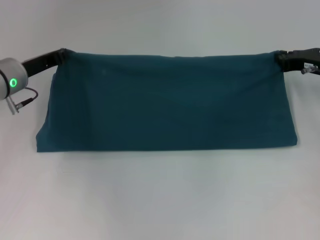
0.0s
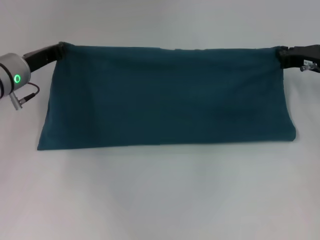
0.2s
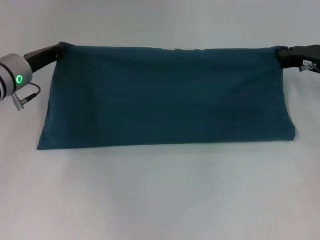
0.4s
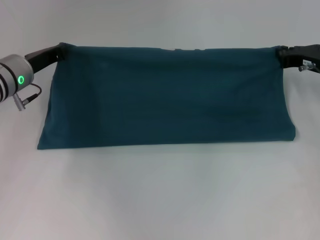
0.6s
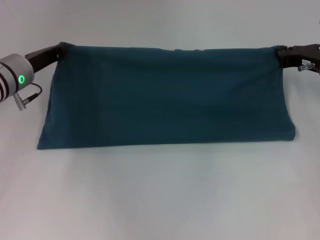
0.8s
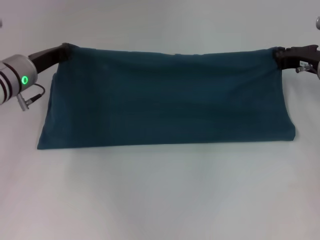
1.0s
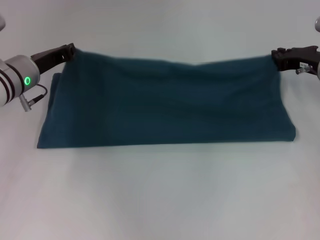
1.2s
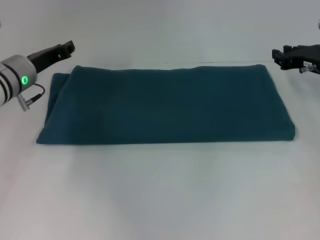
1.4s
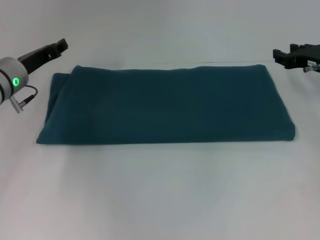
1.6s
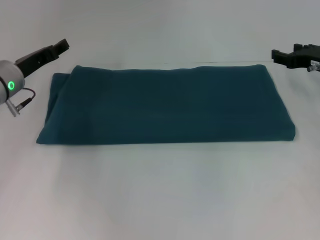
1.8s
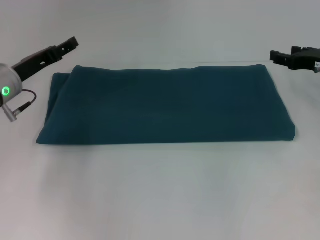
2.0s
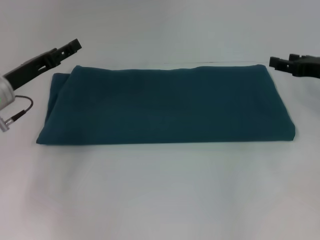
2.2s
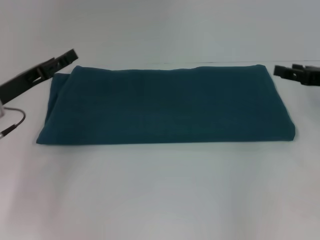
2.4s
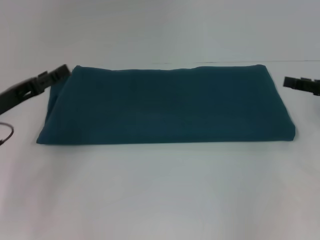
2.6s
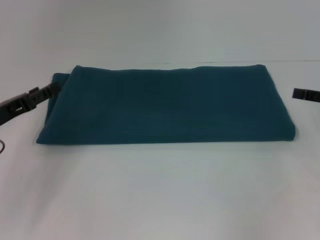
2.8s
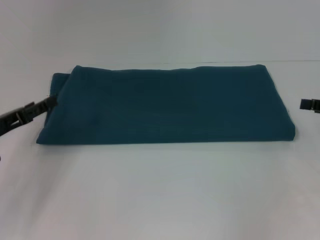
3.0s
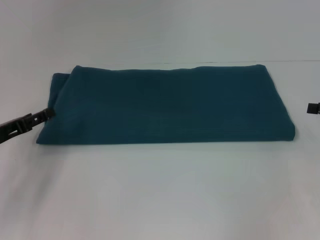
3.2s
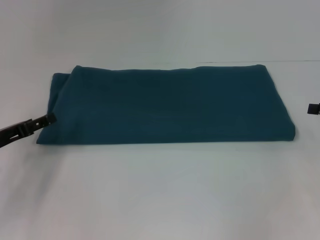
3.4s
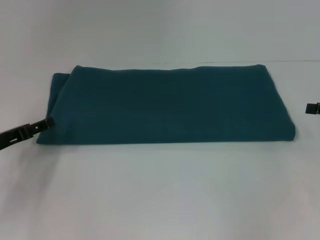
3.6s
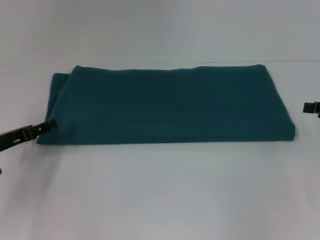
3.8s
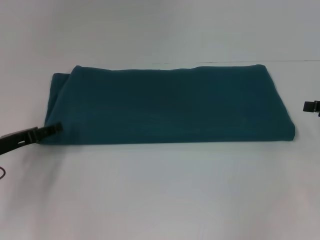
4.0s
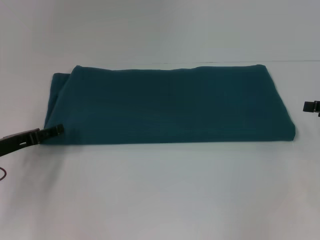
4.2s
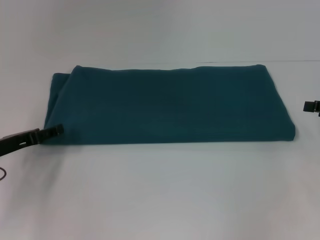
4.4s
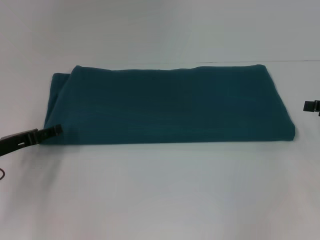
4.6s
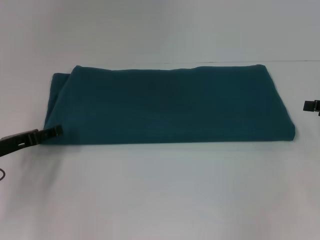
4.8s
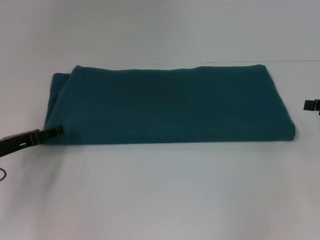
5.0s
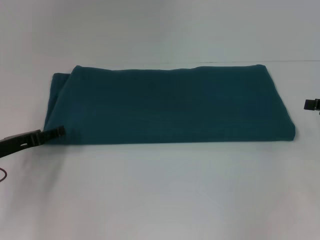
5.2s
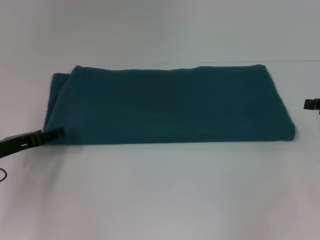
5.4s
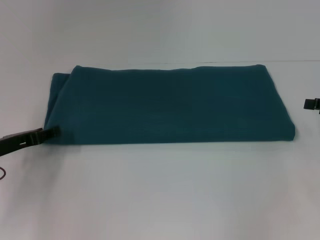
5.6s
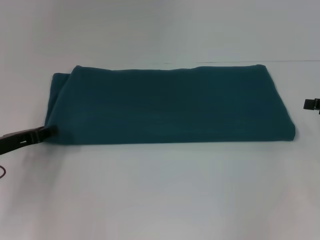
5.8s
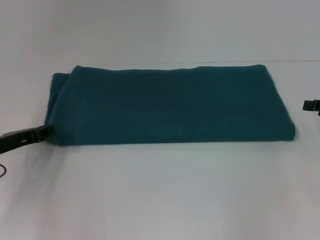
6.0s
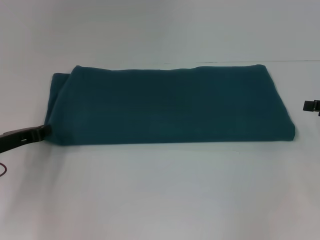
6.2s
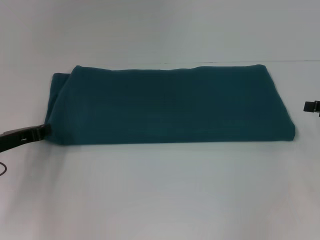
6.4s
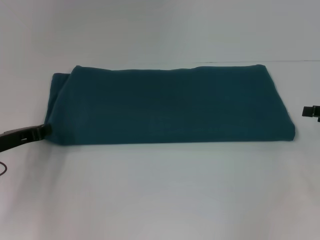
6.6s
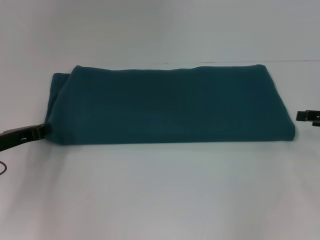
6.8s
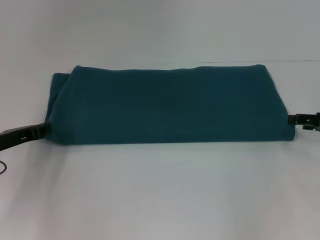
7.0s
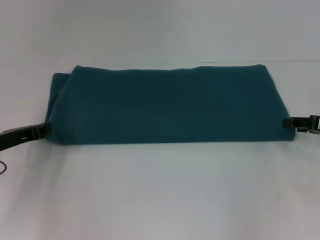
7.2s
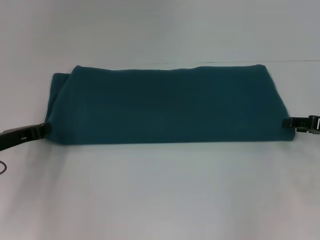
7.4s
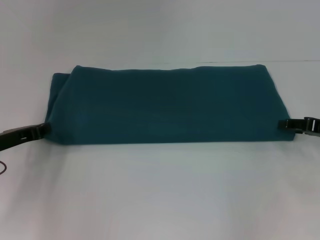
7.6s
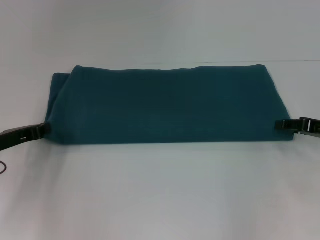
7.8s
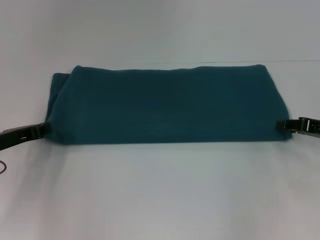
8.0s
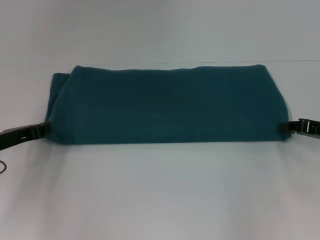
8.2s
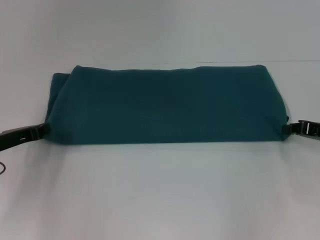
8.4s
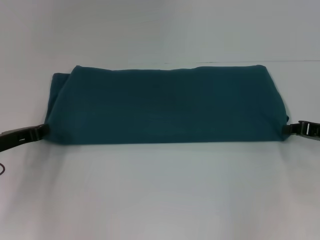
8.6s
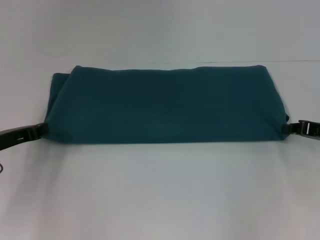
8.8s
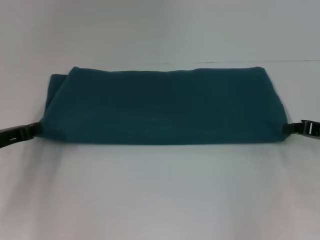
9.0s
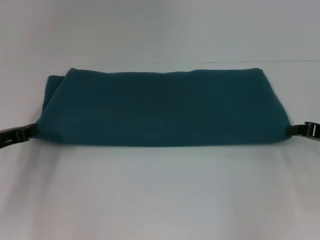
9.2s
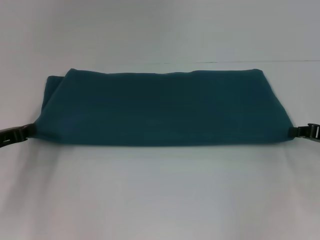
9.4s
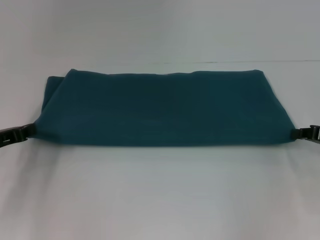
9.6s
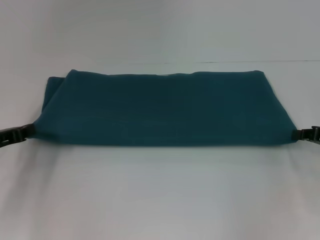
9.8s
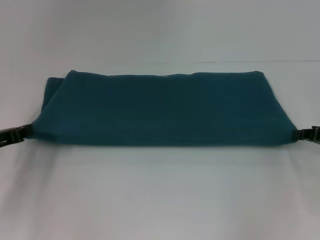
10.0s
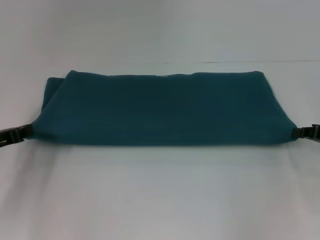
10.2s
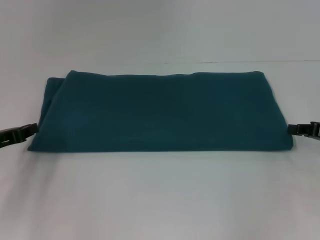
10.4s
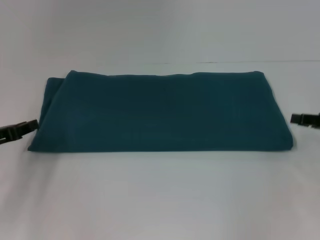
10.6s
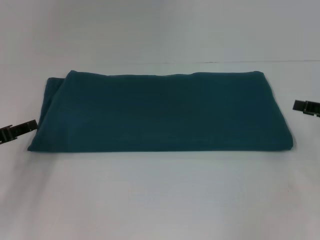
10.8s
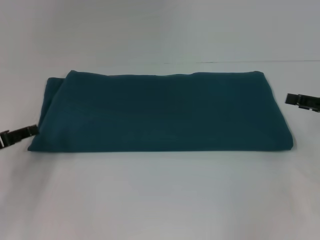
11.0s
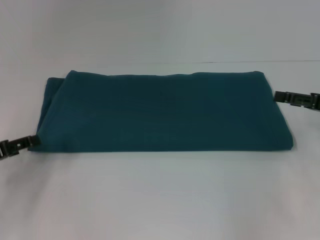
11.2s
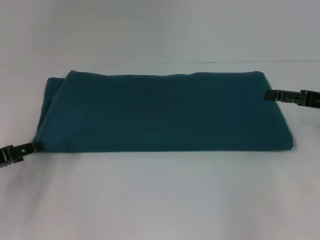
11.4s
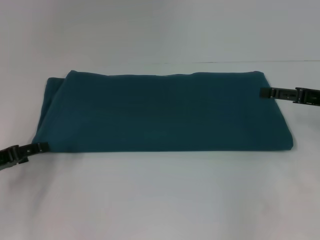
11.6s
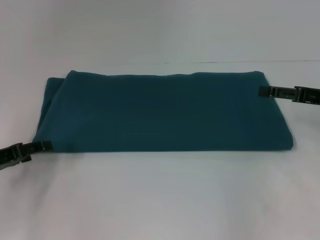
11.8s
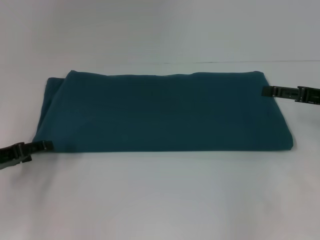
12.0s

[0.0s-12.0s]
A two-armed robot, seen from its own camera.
0.0s to 1.6s: The right gripper opens up.
1.6s to 3.0s: The right gripper moves backward and to the right, about 15 cm, and opens its fingers, while the left gripper shifts roughly 15 cm backward and to the left, and opens its fingers.
3.0s to 4.4s: The grippers make only small movements.
4.4s to 6.0s: The left gripper closes up.
6.0s to 7.6s: The right gripper changes place by about 5 cm, while the left gripper closes up.
7.6s to 9.0s: The right gripper closes its fingers.
9.0s to 10.4s: The grippers make only small movements.
10.4s to 12.0s: The right gripper shifts by roughly 5 cm, and opens up. Meanwhile the left gripper opens.

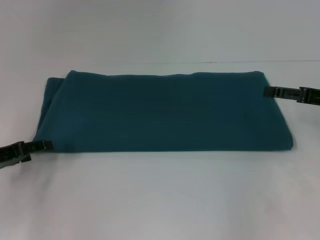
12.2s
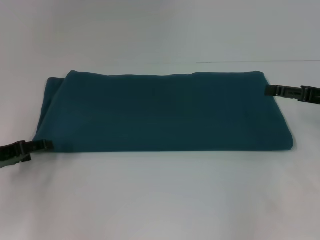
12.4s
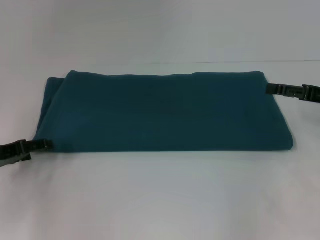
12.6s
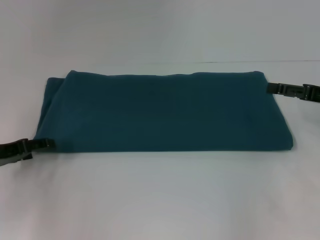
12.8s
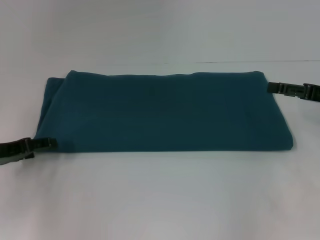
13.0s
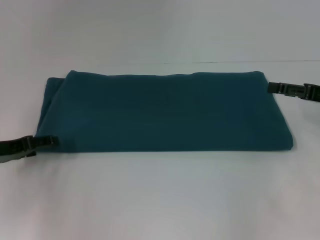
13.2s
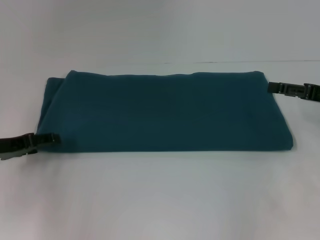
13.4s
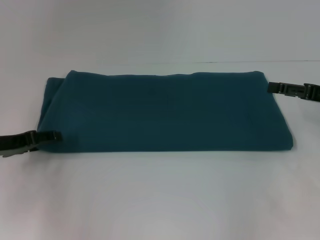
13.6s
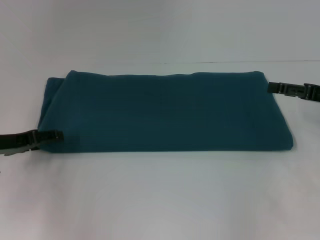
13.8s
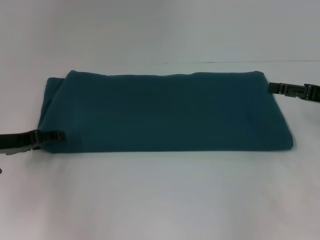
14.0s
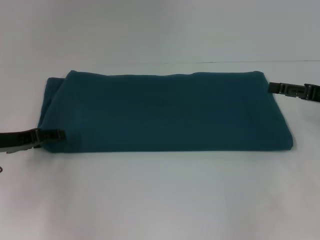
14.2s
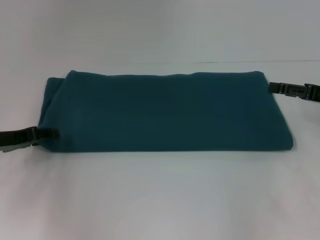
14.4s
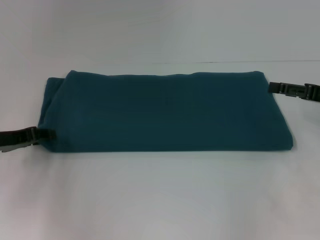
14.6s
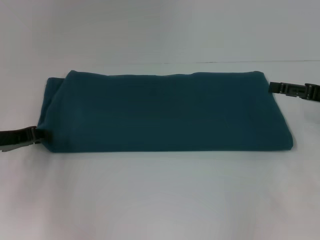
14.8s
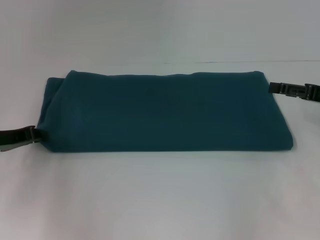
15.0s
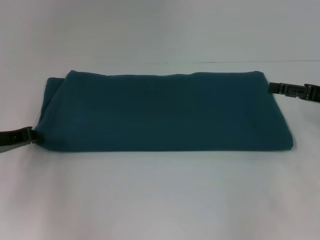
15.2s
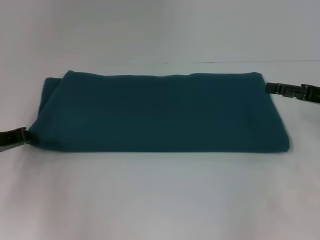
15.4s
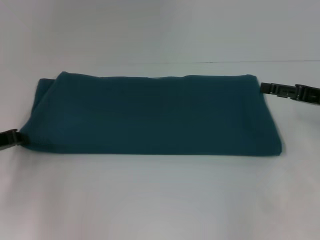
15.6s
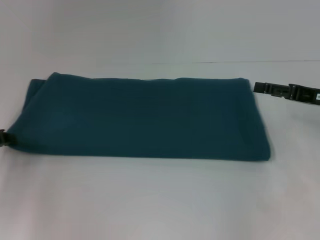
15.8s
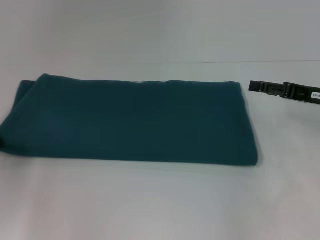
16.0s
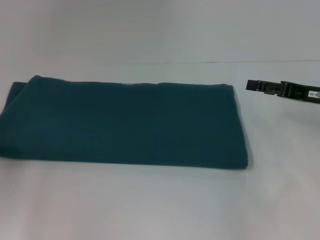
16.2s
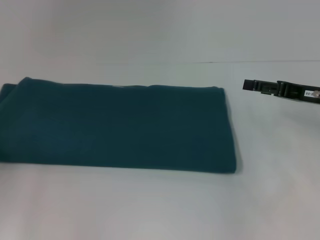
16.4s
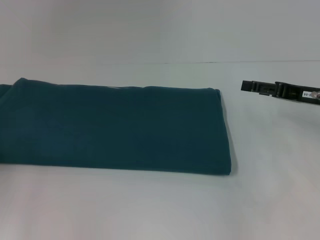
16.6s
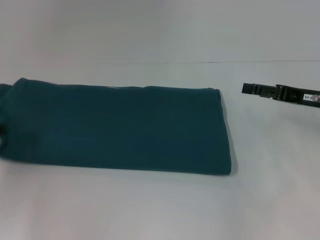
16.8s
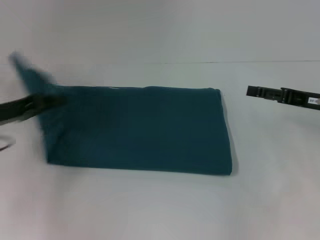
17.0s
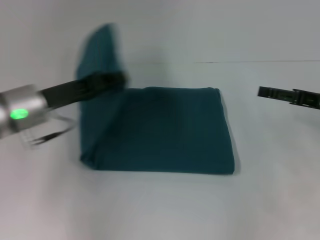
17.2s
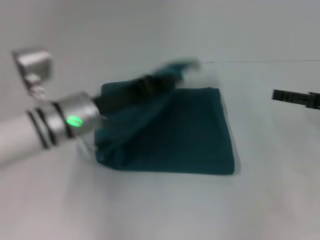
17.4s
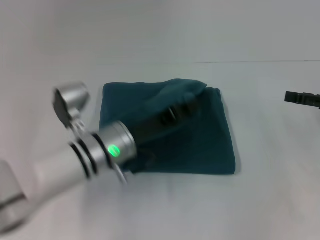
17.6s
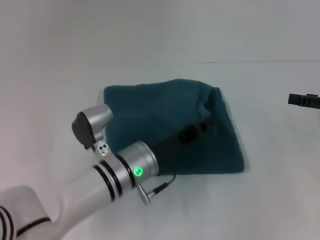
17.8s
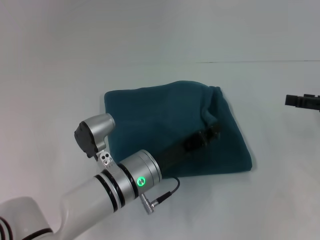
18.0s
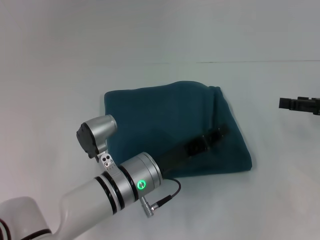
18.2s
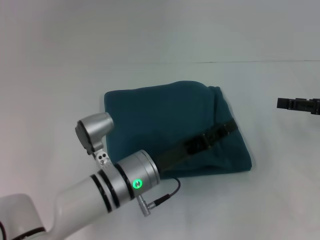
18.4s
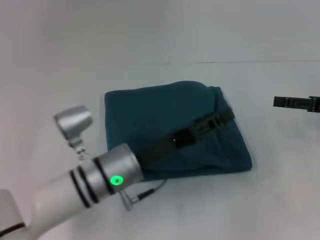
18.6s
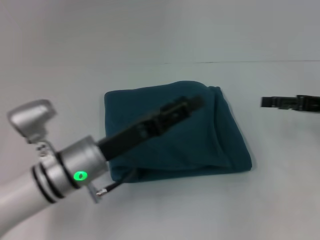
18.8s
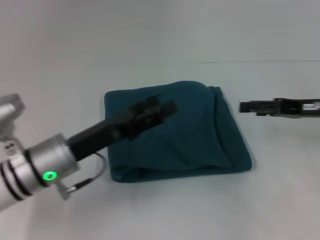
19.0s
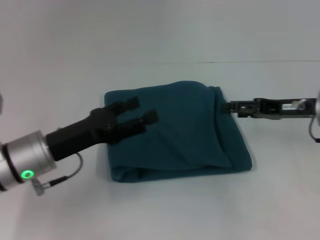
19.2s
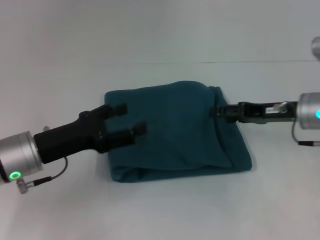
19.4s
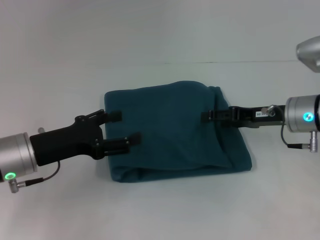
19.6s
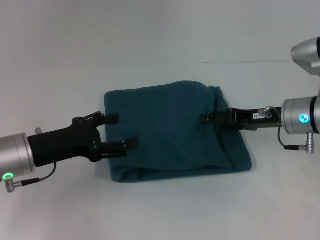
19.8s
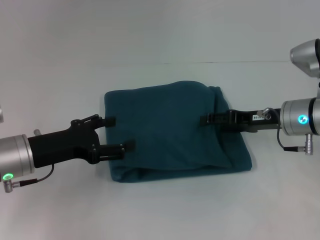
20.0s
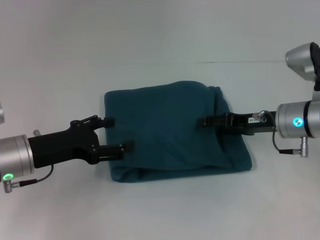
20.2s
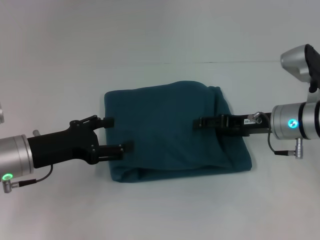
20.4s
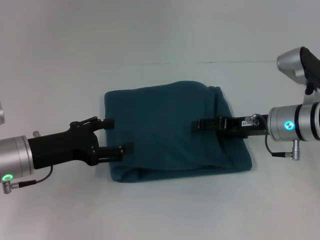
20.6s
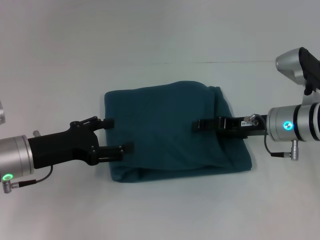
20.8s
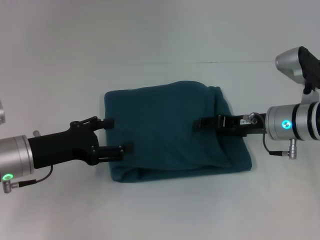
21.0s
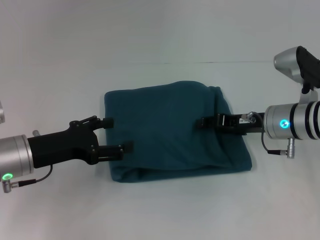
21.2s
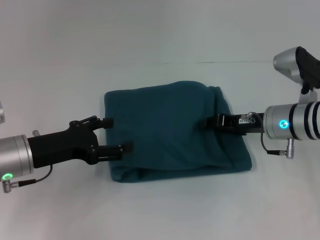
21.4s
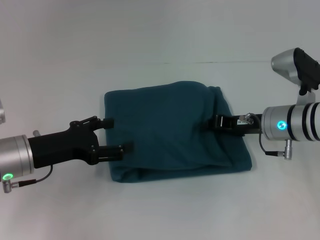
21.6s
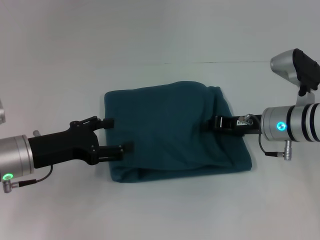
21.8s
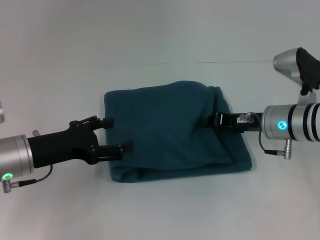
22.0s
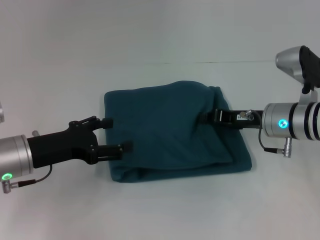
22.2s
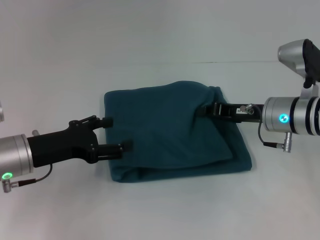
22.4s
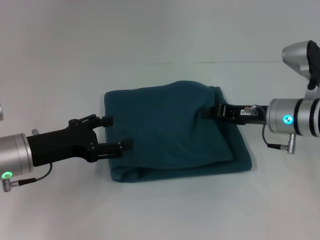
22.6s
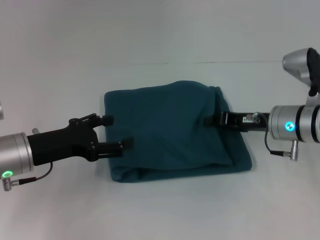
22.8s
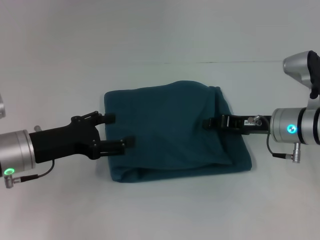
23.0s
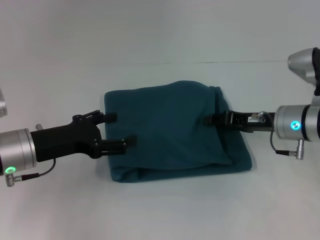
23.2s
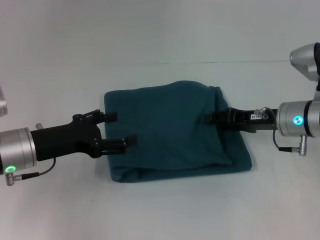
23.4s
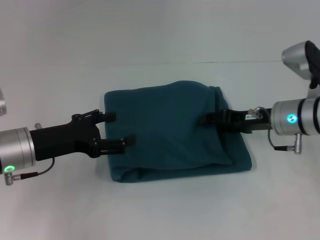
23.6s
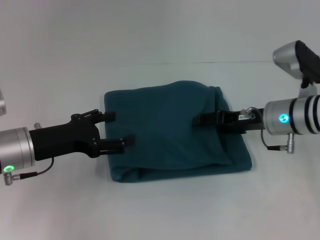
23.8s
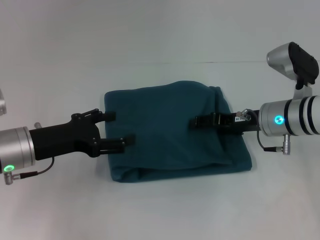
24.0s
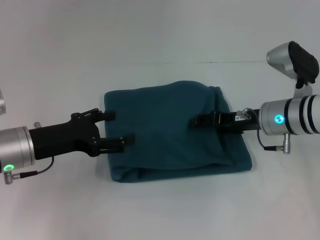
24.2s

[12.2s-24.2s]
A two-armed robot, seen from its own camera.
Step, 12.2s to 18.6s: Fold the clothes to the left.
12.2s to 13.8s: The grippers move only a little.
13.8s to 15.2s: The left gripper closes.
15.2s to 16.6s: The left gripper goes some 10 cm to the left.
16.6s to 18.2s: The right gripper shifts approximately 5 cm to the right; the left gripper goes about 35 cm to the right.
18.2s to 19.8s: The grippers both shift to the left by approximately 15 cm. The left gripper opens.
19.8s to 21.2s: The grippers stay close to where they were, moving slightly.
21.2s to 22.6s: The right gripper closes up.
22.6s to 24.2s: The right gripper opens its fingers.
